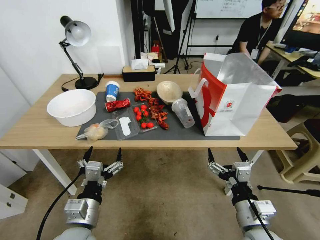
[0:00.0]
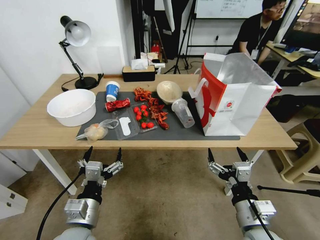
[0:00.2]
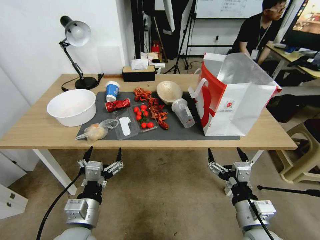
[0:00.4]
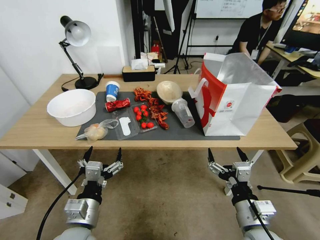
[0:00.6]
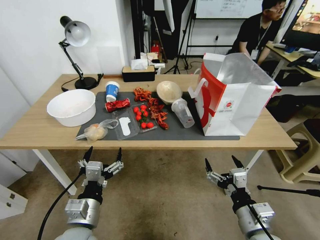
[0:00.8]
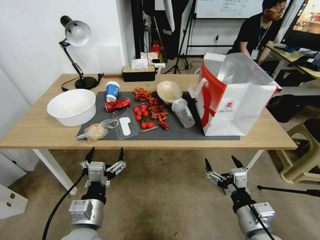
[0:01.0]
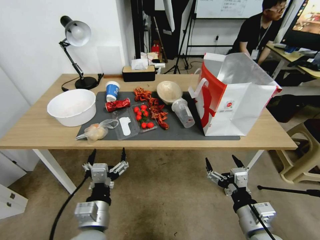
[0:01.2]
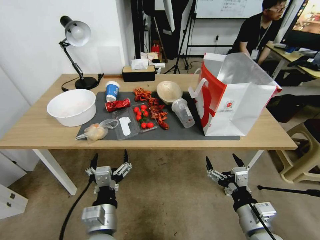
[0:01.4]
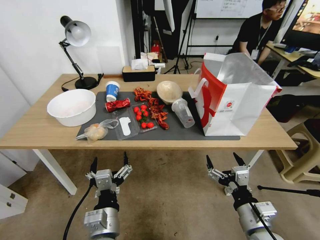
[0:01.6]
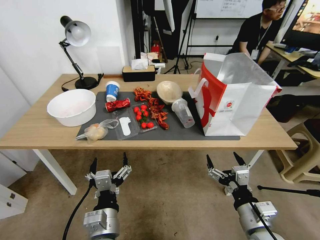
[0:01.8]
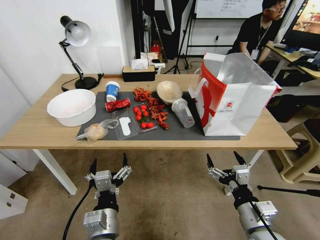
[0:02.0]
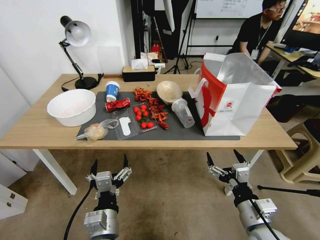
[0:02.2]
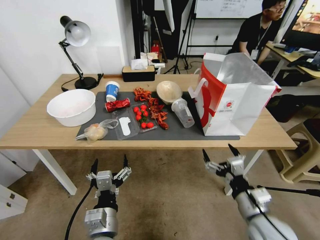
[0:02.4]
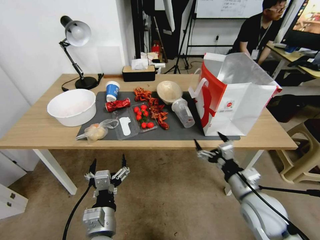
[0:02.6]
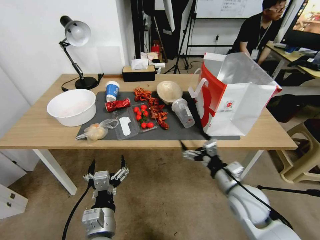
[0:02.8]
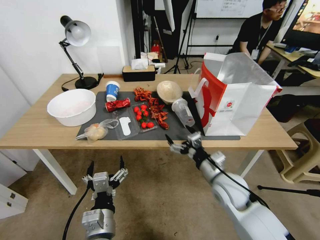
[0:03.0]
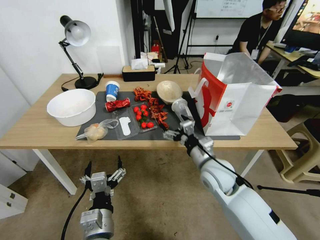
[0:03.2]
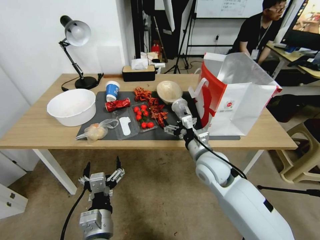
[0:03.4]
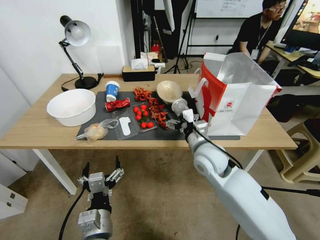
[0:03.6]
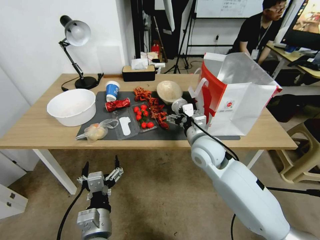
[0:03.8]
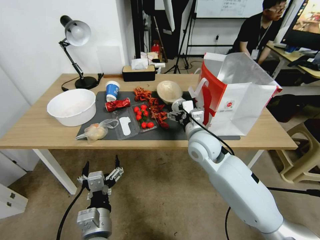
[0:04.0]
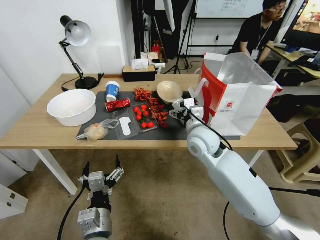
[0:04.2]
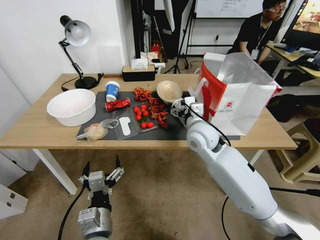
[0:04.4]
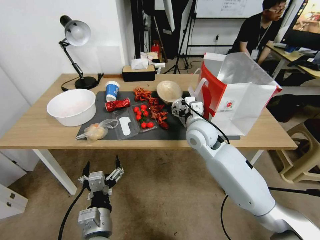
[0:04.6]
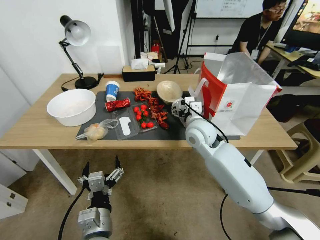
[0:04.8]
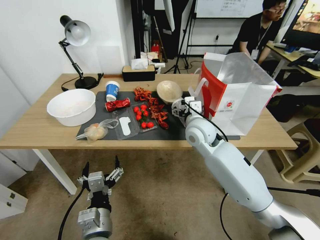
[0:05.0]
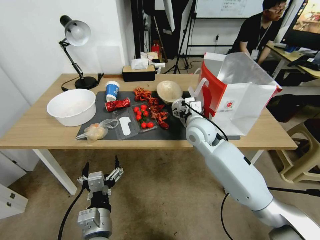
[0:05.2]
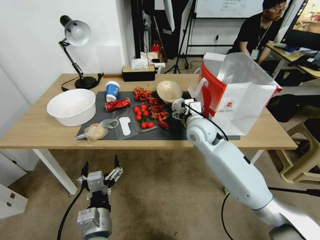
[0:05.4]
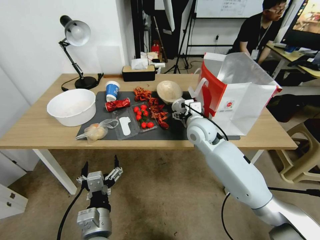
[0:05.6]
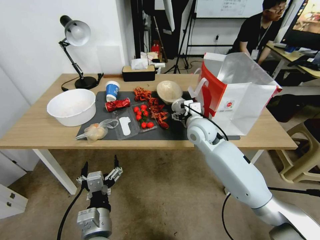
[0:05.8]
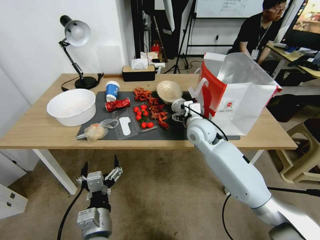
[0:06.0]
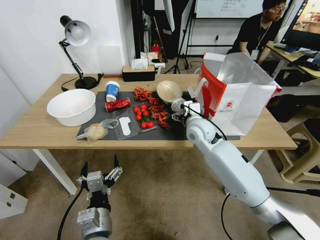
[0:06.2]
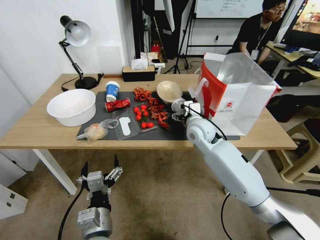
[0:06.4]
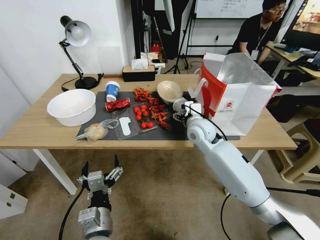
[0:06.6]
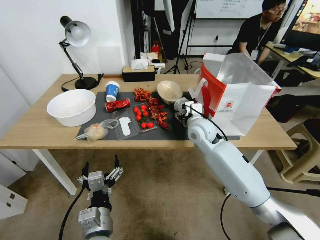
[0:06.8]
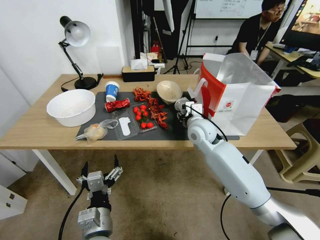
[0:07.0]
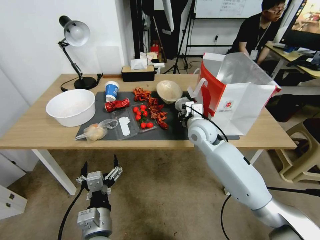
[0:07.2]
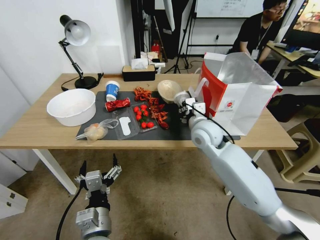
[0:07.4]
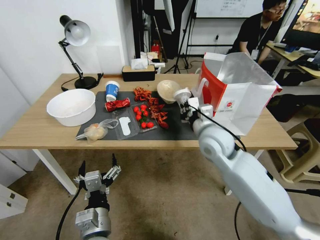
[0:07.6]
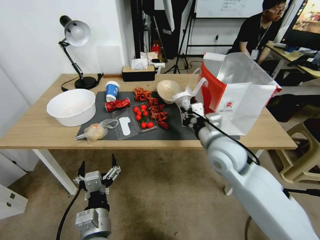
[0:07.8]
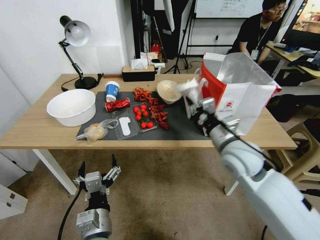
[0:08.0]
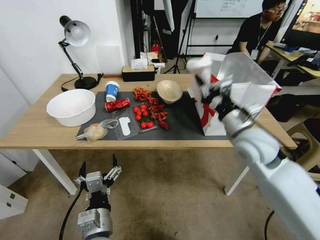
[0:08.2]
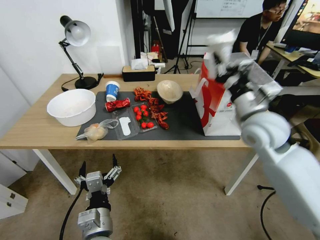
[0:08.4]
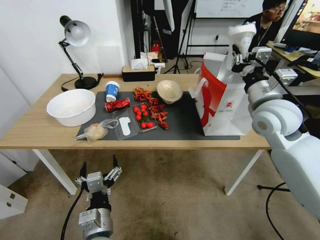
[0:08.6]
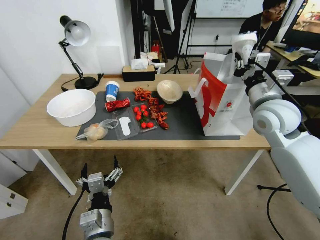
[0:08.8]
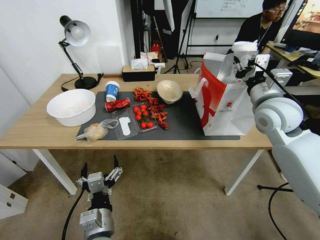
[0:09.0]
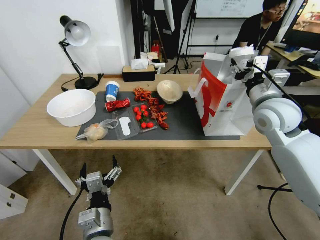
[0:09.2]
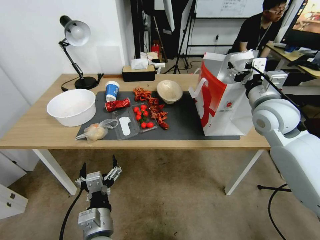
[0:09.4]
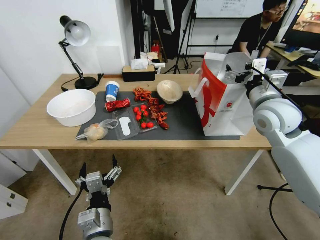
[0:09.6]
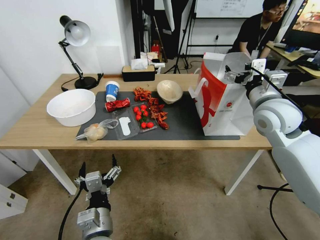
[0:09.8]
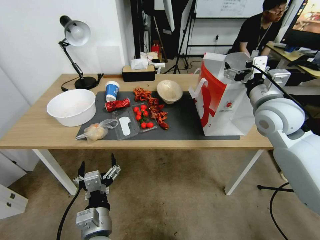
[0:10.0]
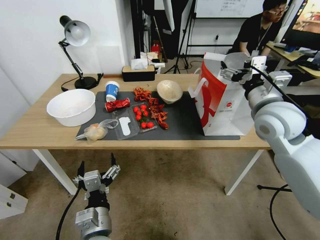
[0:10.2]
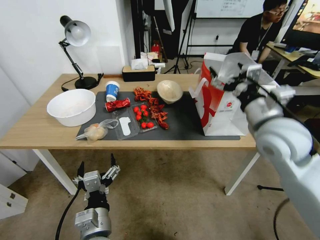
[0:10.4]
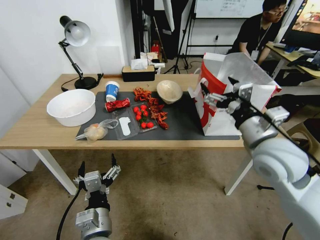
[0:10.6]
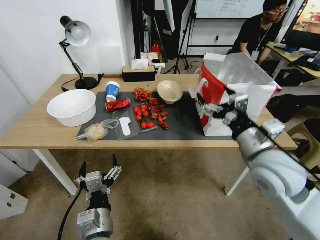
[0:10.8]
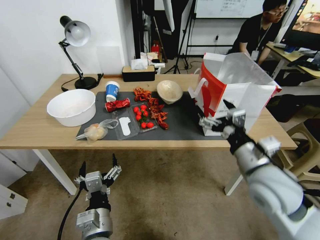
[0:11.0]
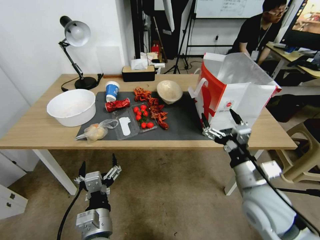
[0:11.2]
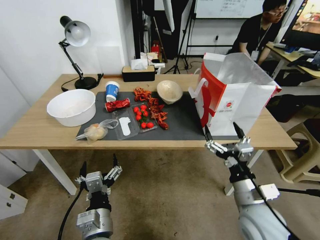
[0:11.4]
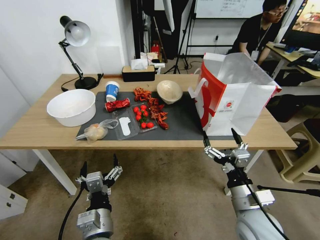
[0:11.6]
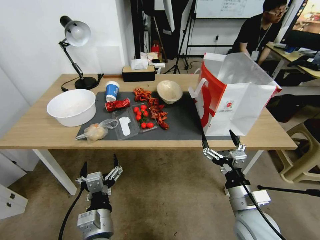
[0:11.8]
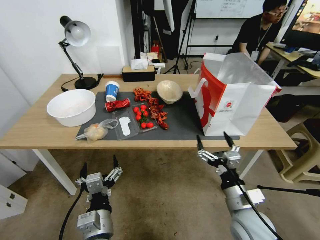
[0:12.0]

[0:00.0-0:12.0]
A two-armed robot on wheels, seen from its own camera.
0:01.6 to 0:03.0: The right gripper travels forward by some 15 cm.
0:03.0 to 0:04.4: The right gripper heads forward, upward and to the left, covering about 15 cm.
0:04.4 to 0:06.0: The right gripper changes place by roughly 5 cm.
0:06.0 to 0:07.6: The right gripper moves backward, some 5 cm, and closes up.
0:07.6 to 0:09.0: The right gripper moves to the right and upward, approximately 15 cm.
0:09.0 to 0:10.4: The right gripper travels backward by roughly 10 cm, and opens.
0:10.4 to 0:12.0: The right gripper travels downward and backward by roughly 25 cm.

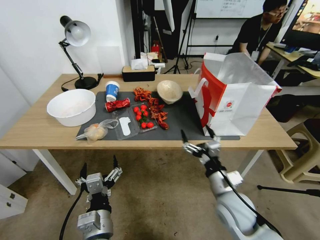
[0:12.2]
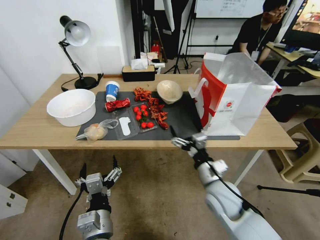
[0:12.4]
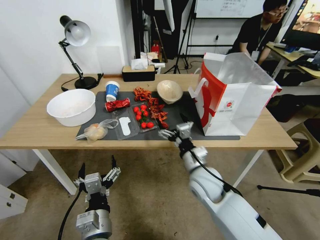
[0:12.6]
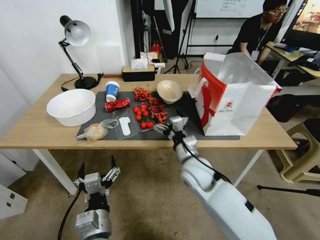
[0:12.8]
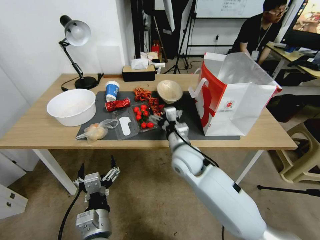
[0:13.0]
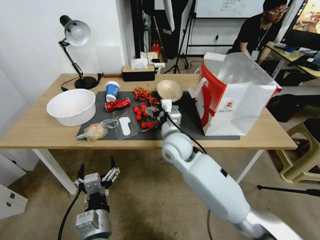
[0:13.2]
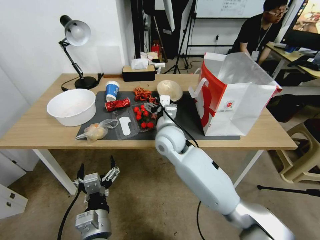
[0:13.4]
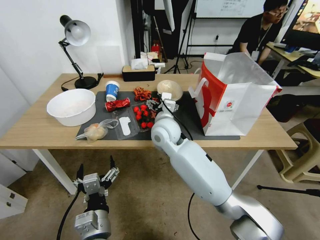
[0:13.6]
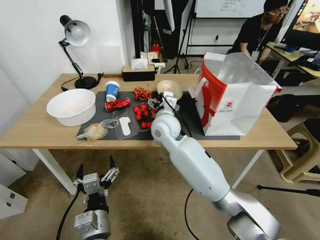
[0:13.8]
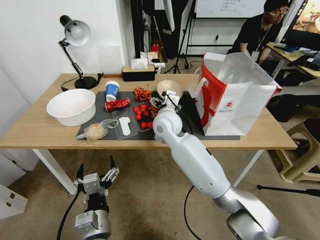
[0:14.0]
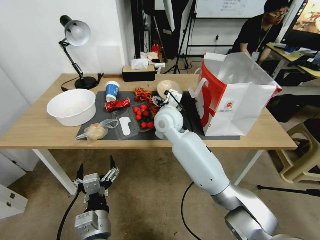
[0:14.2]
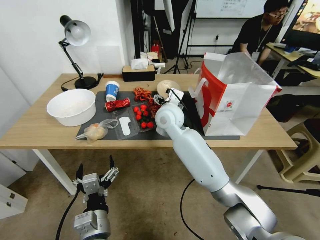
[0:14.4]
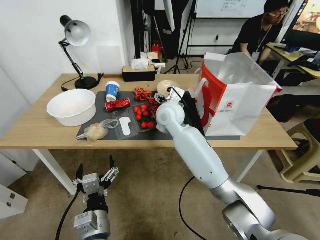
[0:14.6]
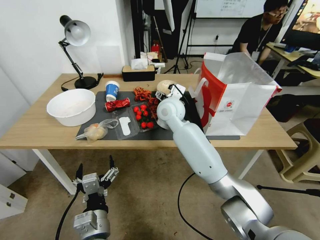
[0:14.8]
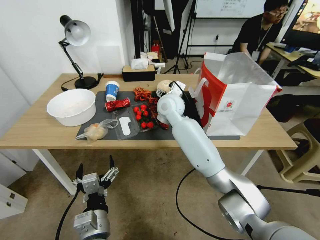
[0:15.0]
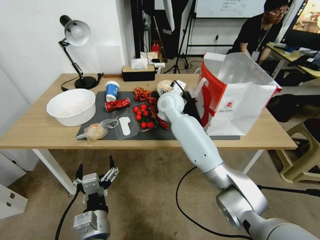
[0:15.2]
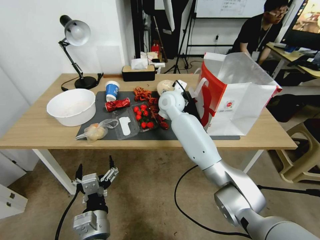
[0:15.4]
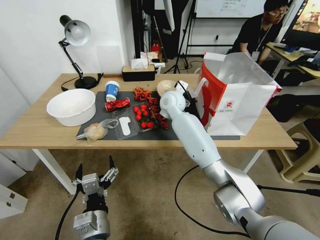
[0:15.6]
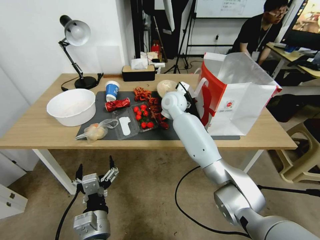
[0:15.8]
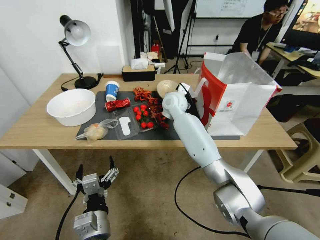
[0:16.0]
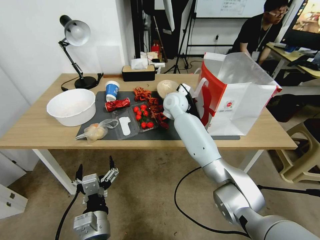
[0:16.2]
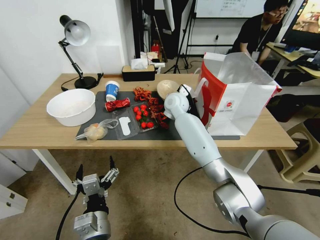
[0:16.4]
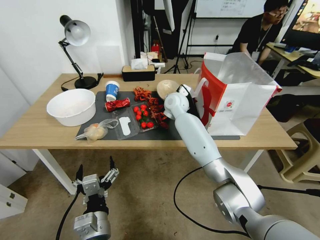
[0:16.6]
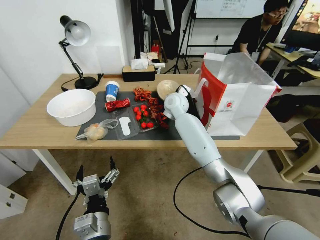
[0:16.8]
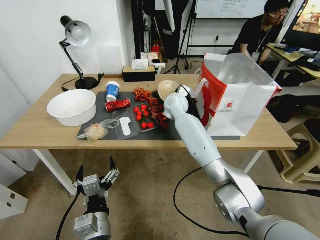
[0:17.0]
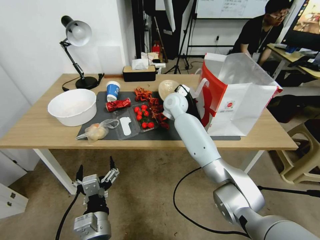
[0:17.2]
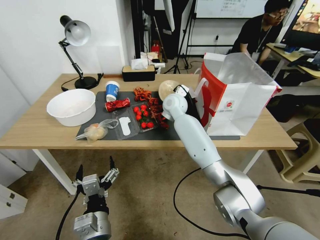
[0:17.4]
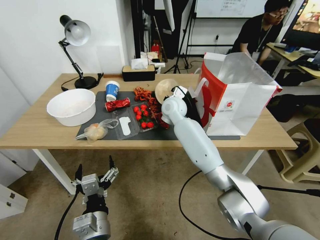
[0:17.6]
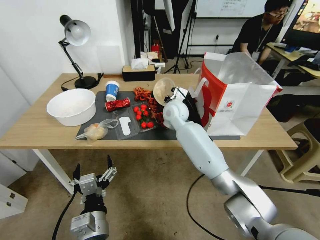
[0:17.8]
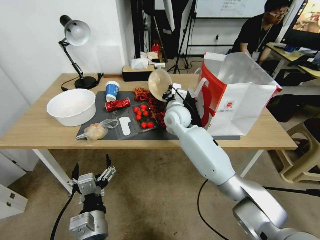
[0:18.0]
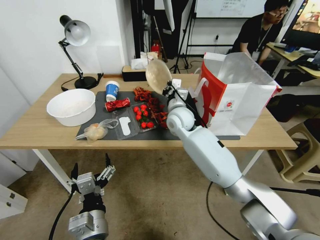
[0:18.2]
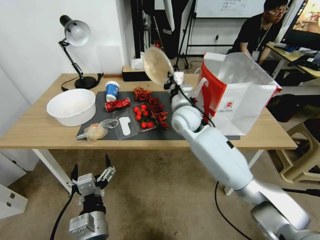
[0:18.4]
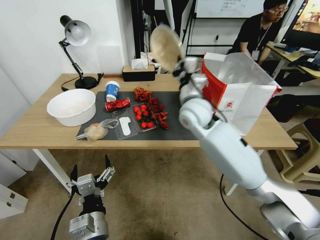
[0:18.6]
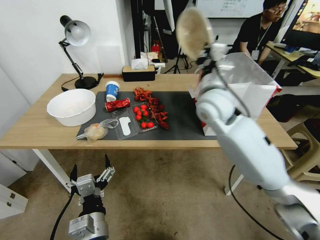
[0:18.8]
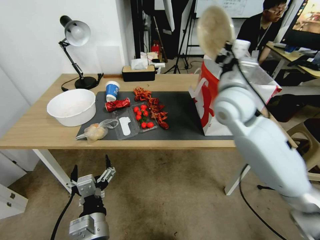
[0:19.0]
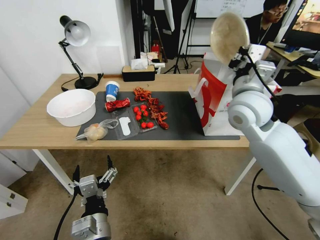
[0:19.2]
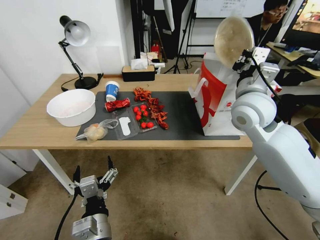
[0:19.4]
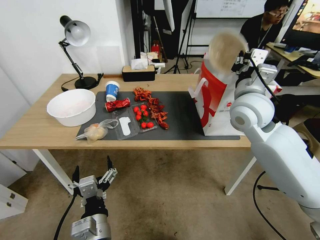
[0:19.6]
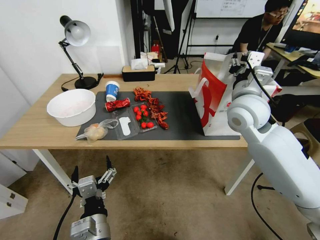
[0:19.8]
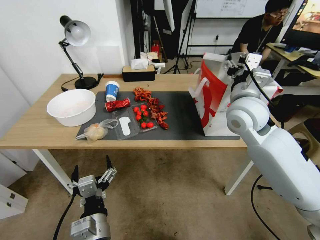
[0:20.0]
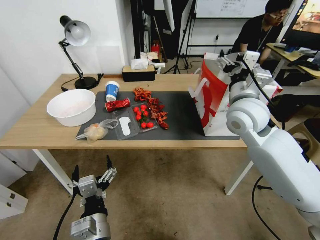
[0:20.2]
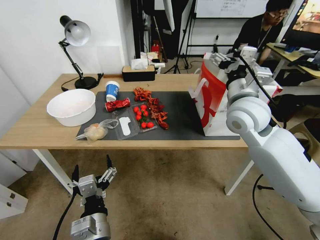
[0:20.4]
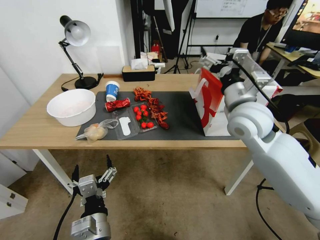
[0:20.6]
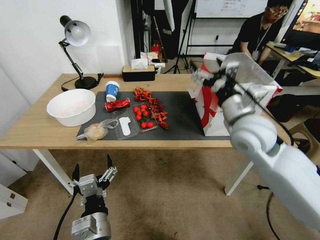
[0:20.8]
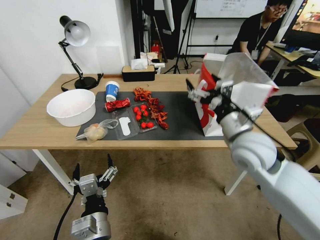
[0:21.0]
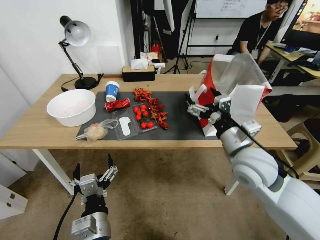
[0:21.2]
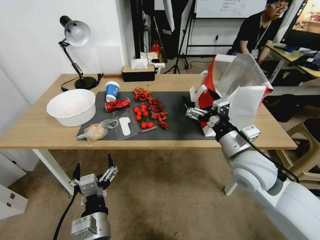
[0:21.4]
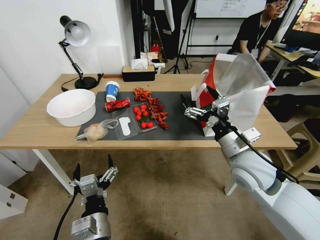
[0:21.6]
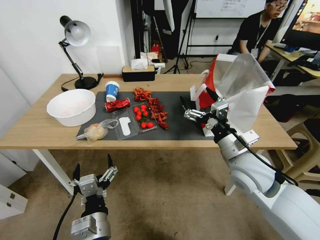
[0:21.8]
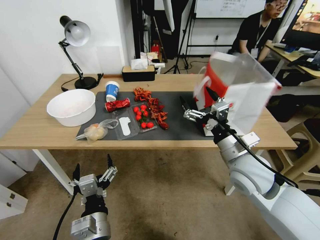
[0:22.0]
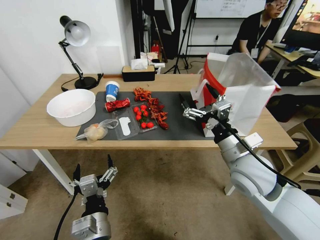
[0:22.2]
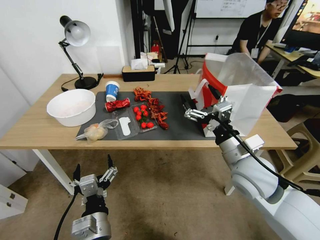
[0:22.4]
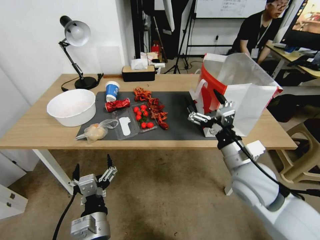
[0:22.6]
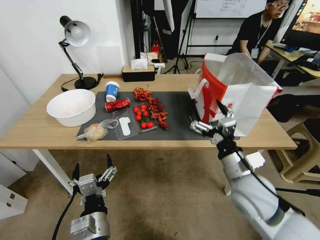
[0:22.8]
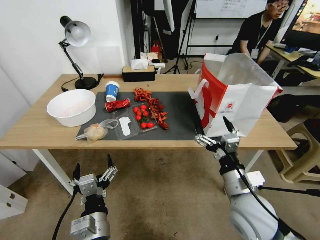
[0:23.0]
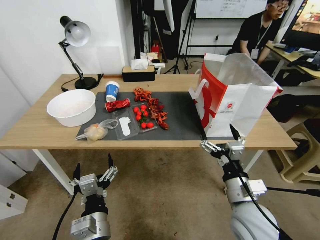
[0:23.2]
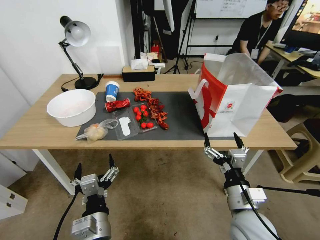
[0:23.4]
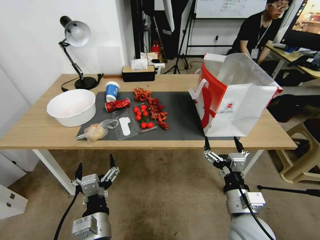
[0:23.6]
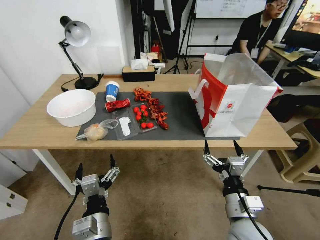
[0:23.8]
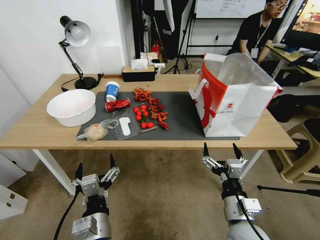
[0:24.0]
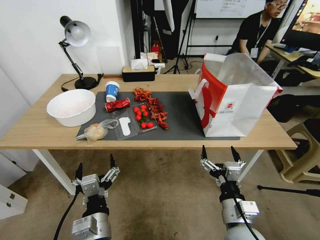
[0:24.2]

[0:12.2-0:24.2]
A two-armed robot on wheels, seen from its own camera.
0:12.2 to 0:13.8: The right gripper travels forward, to the left and upward by about 30 cm.
0:13.8 to 0:15.2: The right gripper shifts some 10 cm forward.
0:15.2 to 0:16.6: The right gripper ends up some 5 cm from where it was.
0:16.6 to 0:18.2: The right gripper heads backward, covering roughly 10 cm, and closes.
0:18.2 to 0:19.8: The right gripper shifts about 20 cm to the right, upward and backward, and opens up.
0:19.8 to 0:21.2: The right gripper travels backward and downward by about 15 cm, and opens.
0:21.2 to 0:22.6: The grippers stay close to where they were, moving slightly.
0:22.6 to 0:24.2: The right gripper travels backward and downward by roughly 15 cm.
